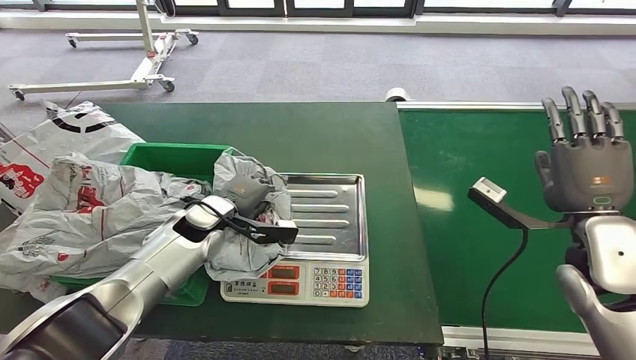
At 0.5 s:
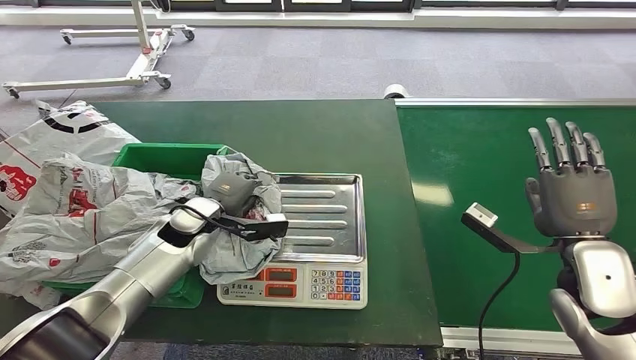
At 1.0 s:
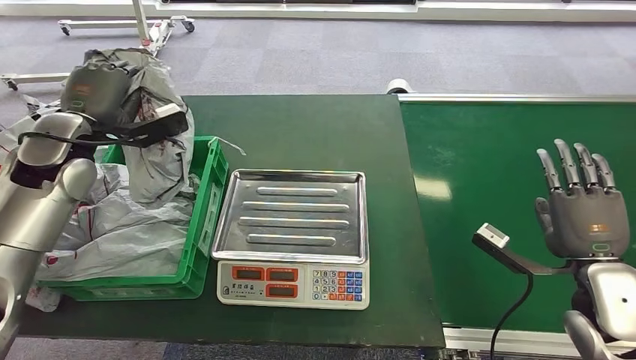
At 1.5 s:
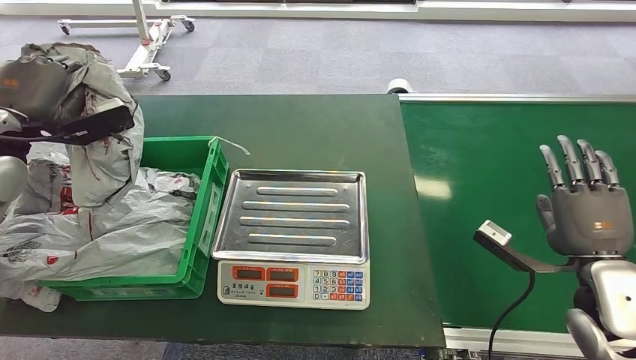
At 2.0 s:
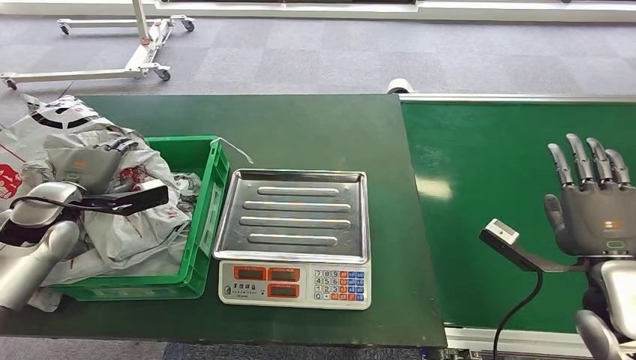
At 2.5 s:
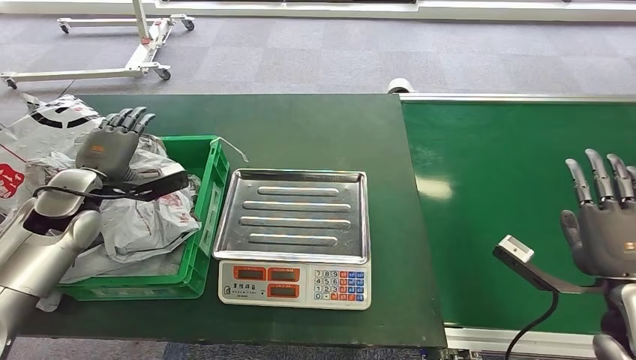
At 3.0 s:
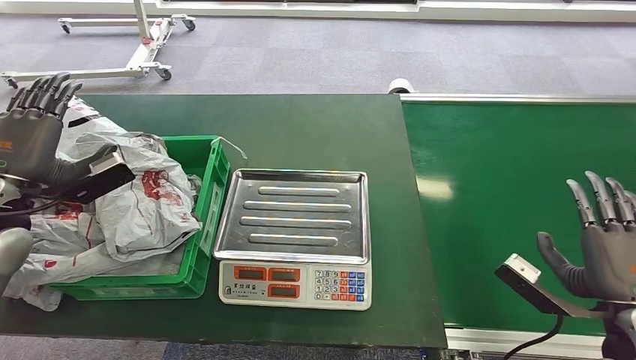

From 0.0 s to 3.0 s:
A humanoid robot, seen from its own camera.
Step, from 1.5 s to 3.0 s: Place the package into the parcel locker.
